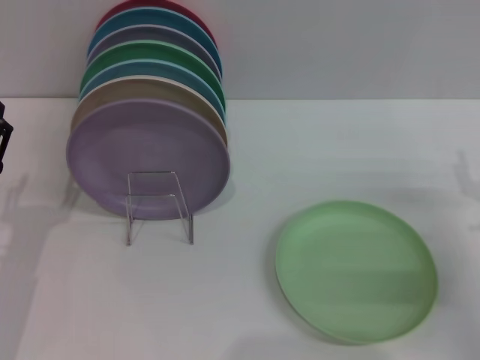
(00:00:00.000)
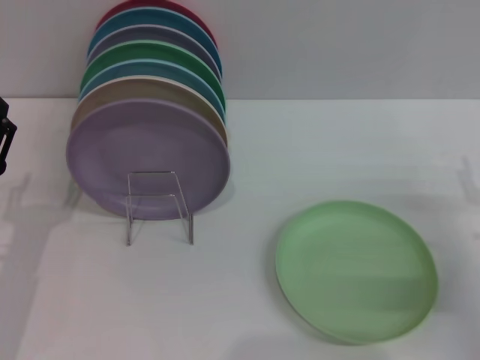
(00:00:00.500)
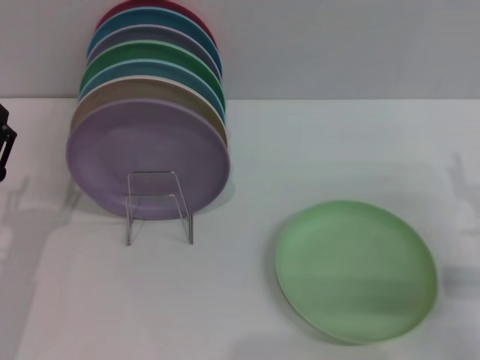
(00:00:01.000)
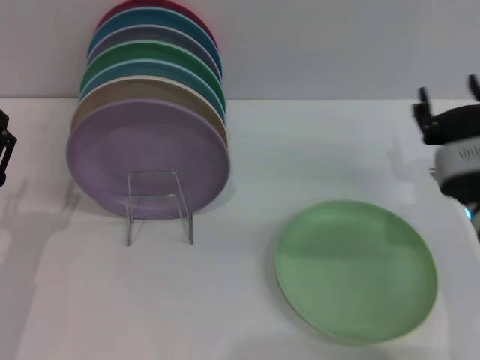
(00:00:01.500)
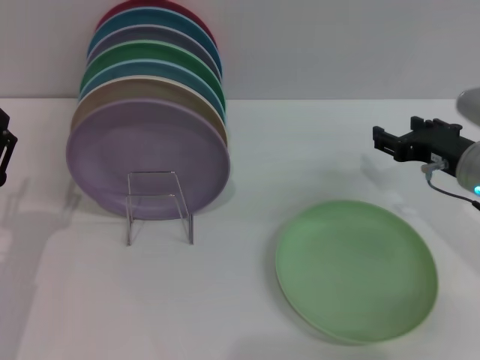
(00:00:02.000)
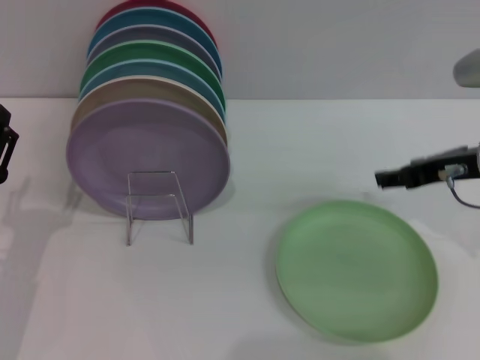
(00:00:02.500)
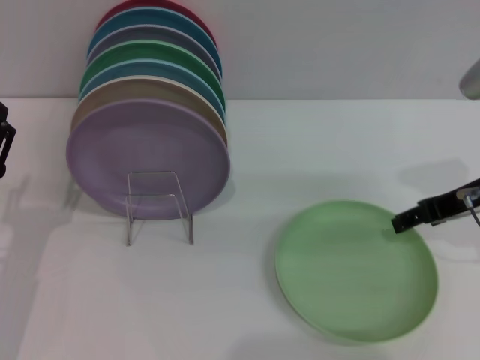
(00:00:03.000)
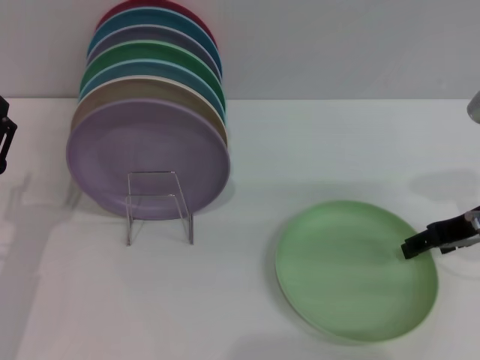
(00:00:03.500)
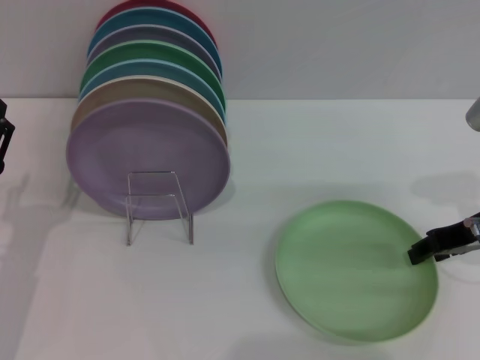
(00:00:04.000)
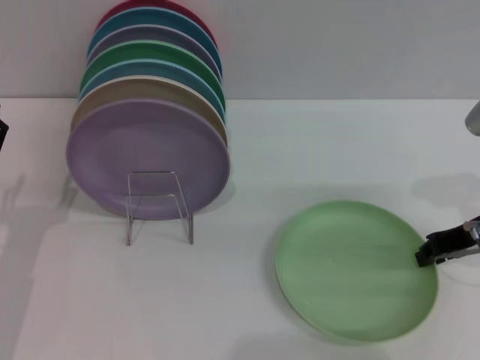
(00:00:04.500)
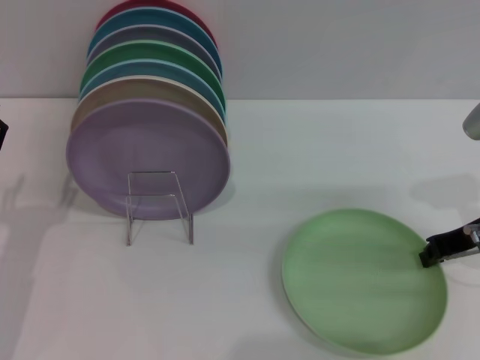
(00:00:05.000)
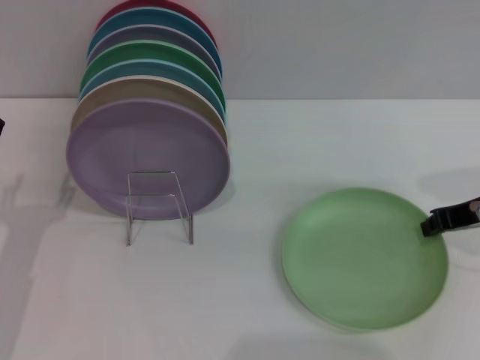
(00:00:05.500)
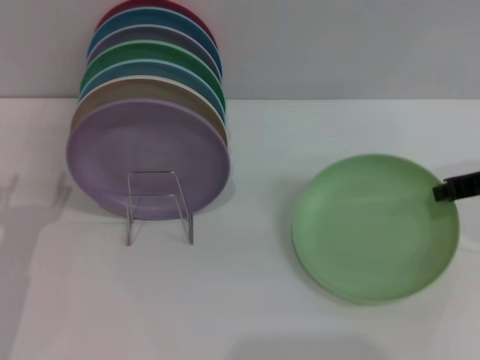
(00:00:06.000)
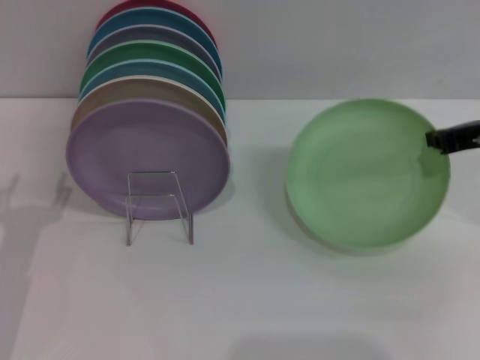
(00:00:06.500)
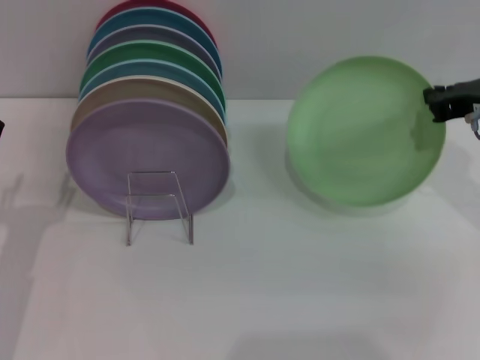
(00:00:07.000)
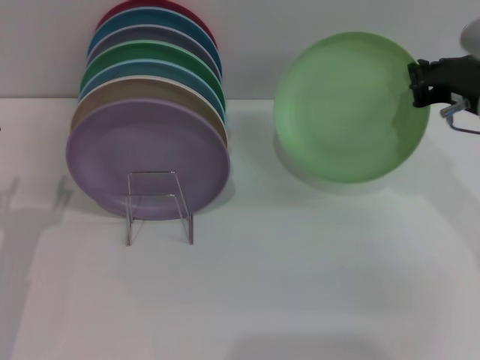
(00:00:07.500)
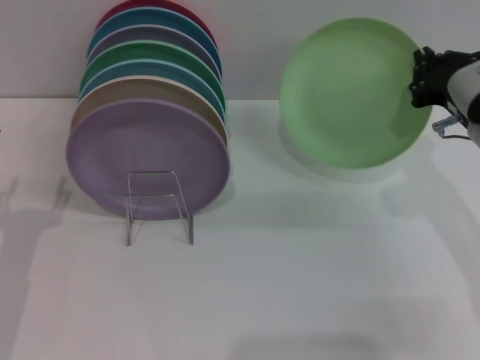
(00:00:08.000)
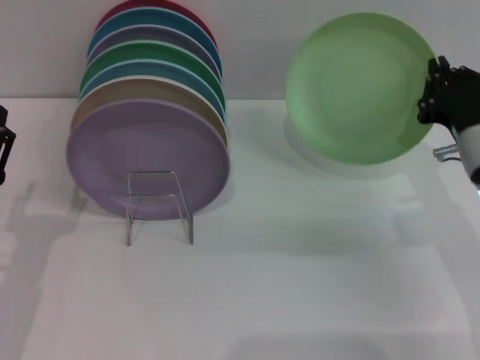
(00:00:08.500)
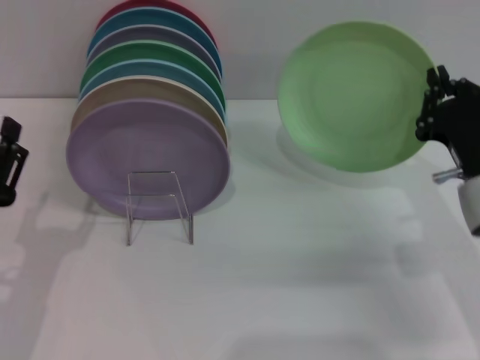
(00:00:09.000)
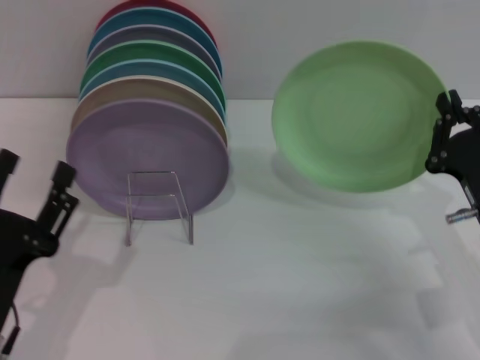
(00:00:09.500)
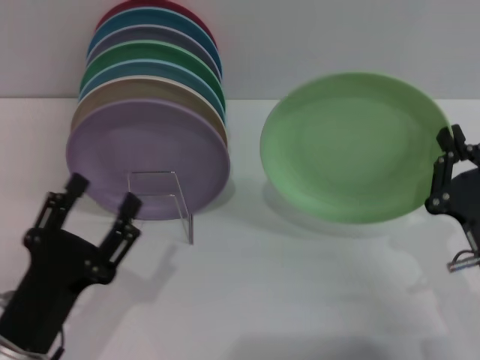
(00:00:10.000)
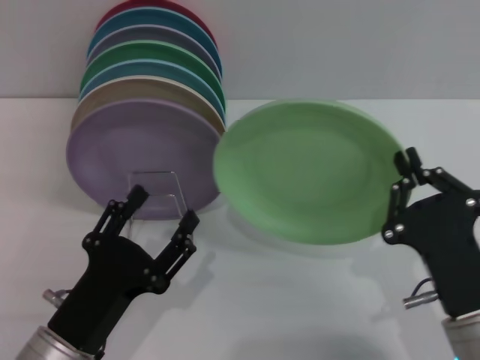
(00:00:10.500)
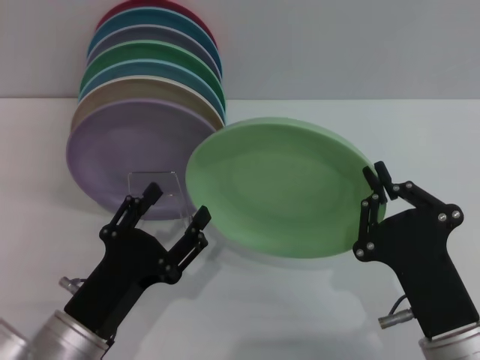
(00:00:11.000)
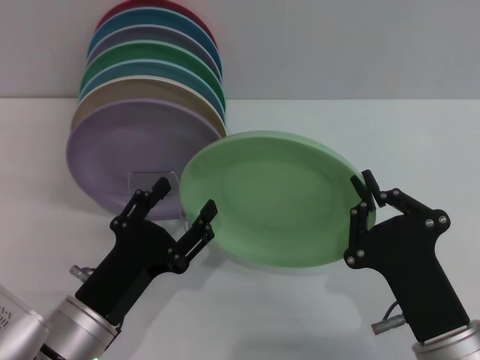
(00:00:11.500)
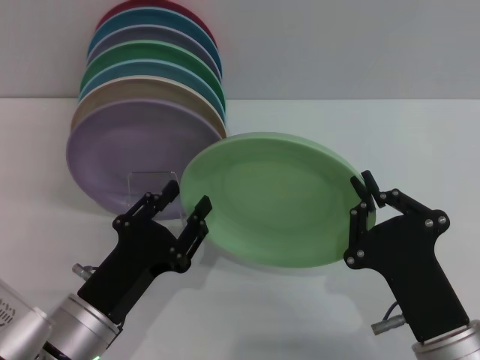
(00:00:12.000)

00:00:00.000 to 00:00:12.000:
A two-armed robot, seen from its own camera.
Task of the whole recording: Grip the plate with one hand, pass it to the other, then set it on the shelf.
Step, 00:00:00.000 to 00:00:07.000: Pick up the plate with the right gripper.
00:00:00.000 to 00:00:02.000: The right gripper is displaced forward, to the left and upward by about 10 cm.
00:00:04.000 to 00:00:06.000: The right gripper closes.
00:00:06.000 to 00:00:08.000: The right gripper shifts by roughly 5 cm.
00:00:08.000 to 00:00:10.000: The right gripper shifts about 15 cm backward and downward, while the left gripper moves backward and to the right, some 10 cm.
00:00:10.000 to 00:00:12.000: The left gripper changes place by approximately 5 cm. Meanwhile the right gripper shifts roughly 5 cm to the left.

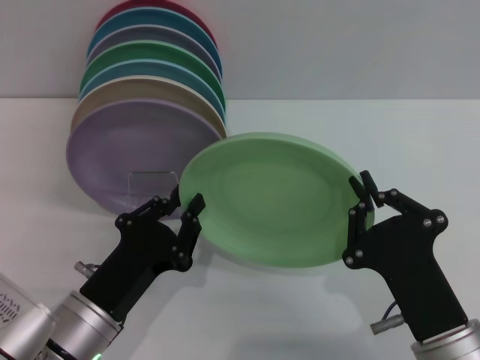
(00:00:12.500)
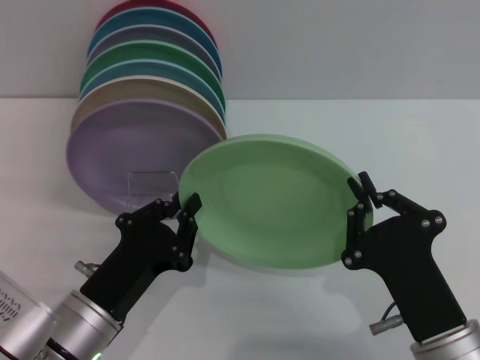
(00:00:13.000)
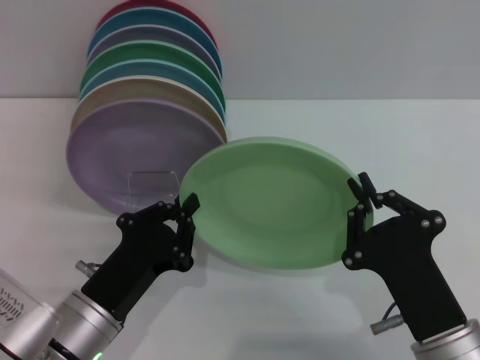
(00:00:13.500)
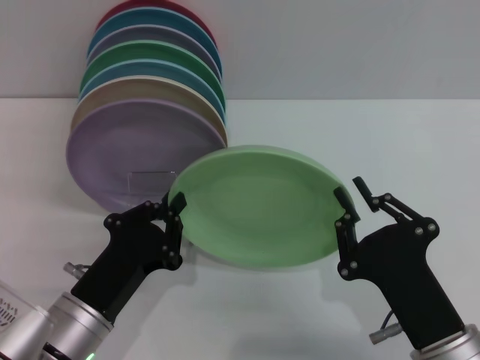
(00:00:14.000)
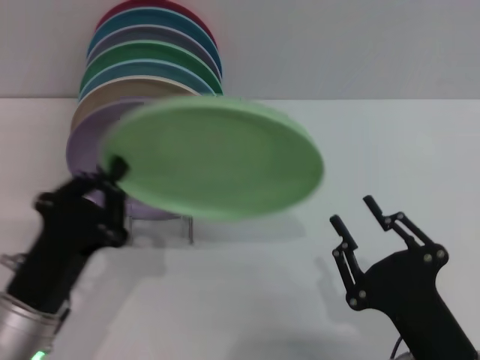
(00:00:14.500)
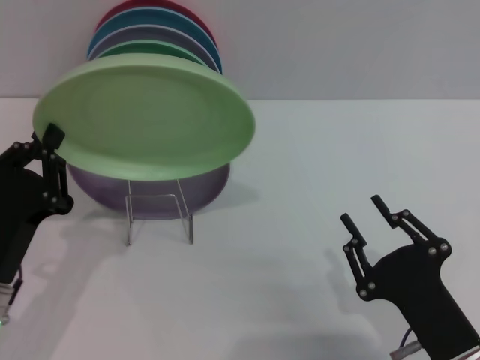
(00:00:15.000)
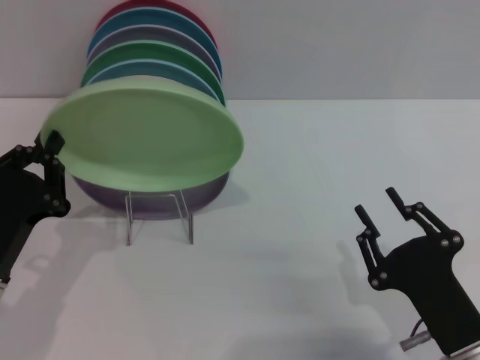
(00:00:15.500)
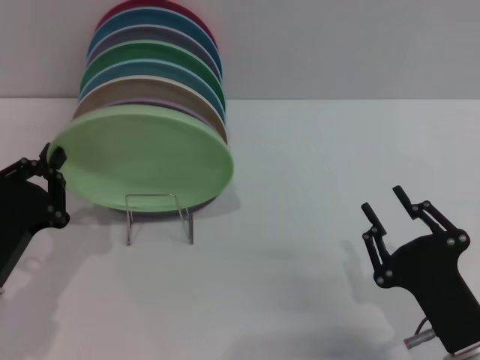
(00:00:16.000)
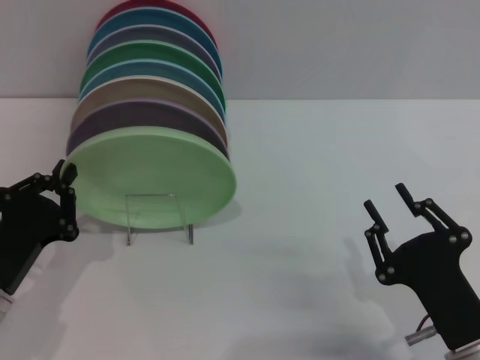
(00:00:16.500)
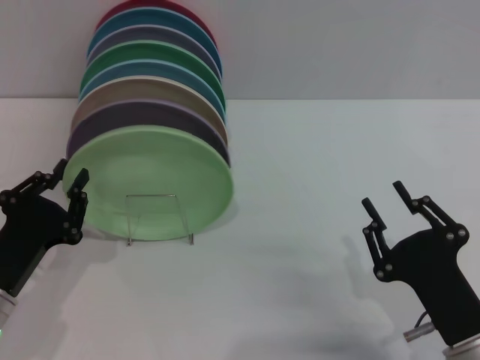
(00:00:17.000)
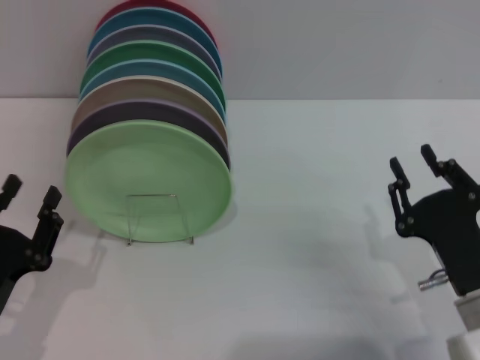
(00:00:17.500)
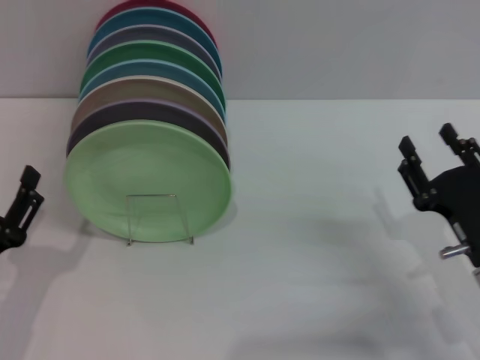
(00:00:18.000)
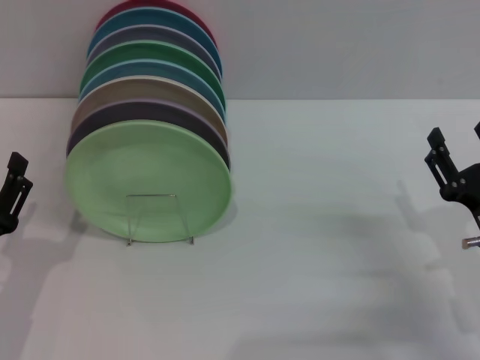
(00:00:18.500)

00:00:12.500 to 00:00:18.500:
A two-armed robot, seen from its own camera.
Task of the whole recording: Grip the plate with one hand, pass it to the other, then set it on the shelf.
Step, 00:00:14.500 to 00:00:17.500: Place the plate on the shelf with the left gripper.
00:00:12.500 to 00:00:14.500: The right gripper opens.
00:00:14.500 to 00:00:16.500: The left gripper heads to the left, covering roughly 5 cm.
00:00:16.500 to 00:00:18.500: The left gripper opens up. Meanwhile the right gripper shifts some 10 cm forward and to the right, and opens up.
